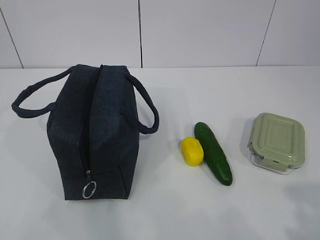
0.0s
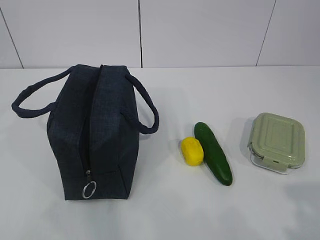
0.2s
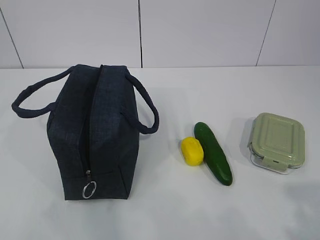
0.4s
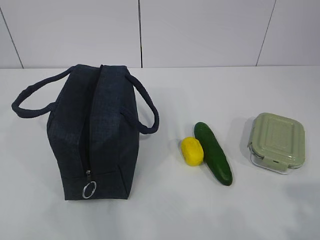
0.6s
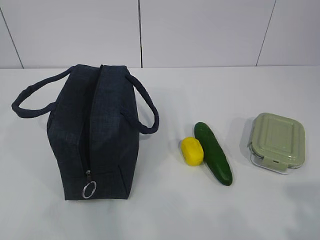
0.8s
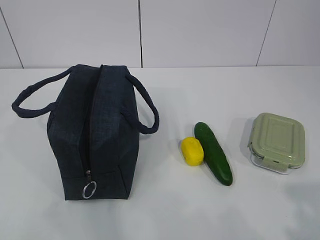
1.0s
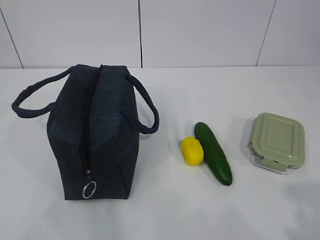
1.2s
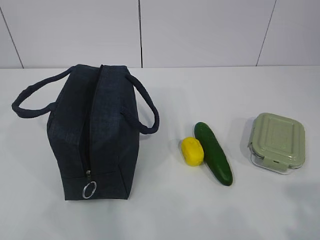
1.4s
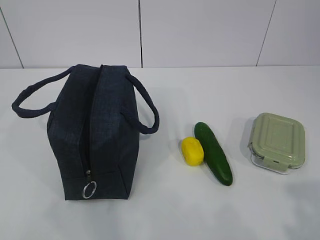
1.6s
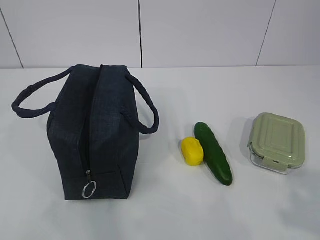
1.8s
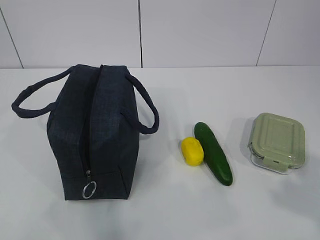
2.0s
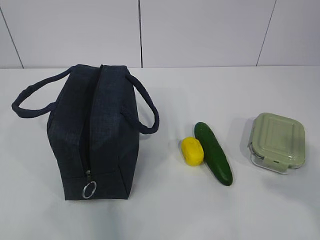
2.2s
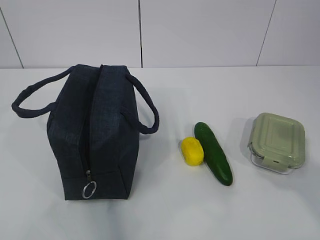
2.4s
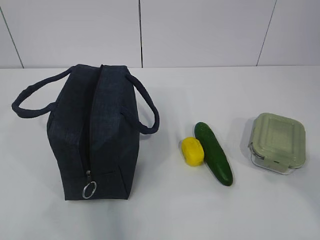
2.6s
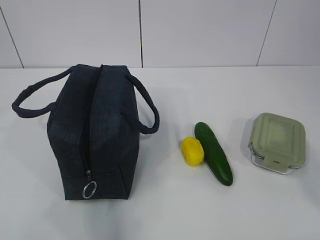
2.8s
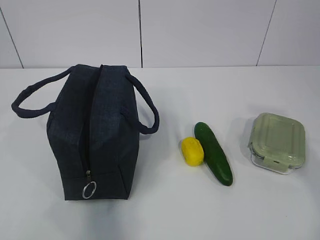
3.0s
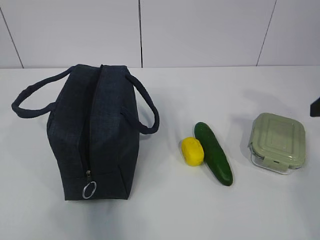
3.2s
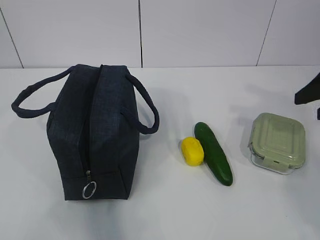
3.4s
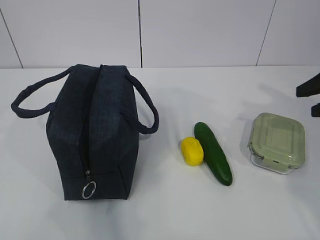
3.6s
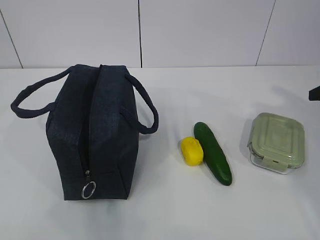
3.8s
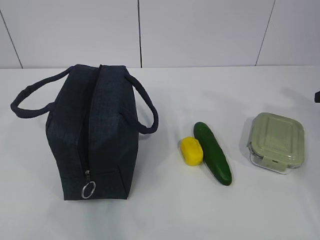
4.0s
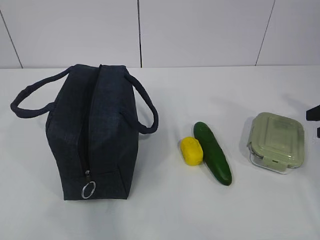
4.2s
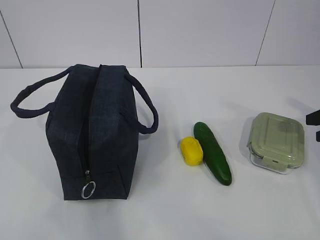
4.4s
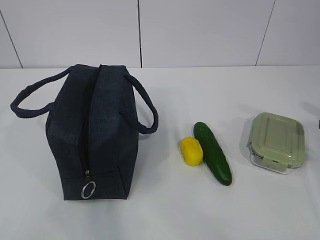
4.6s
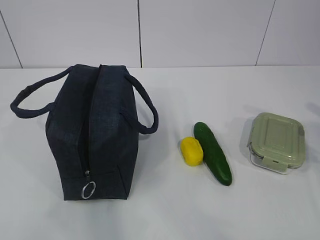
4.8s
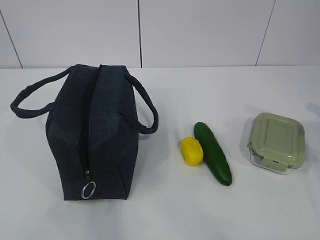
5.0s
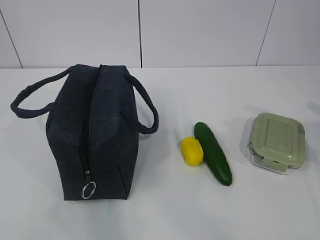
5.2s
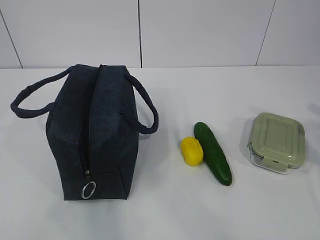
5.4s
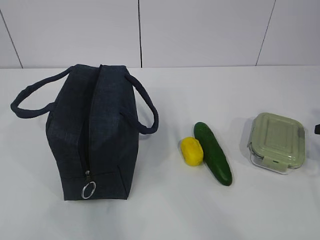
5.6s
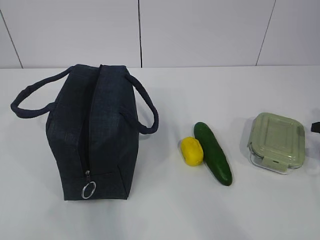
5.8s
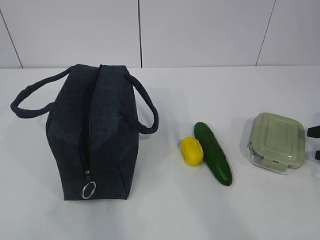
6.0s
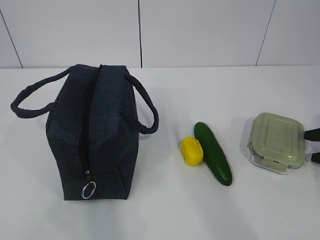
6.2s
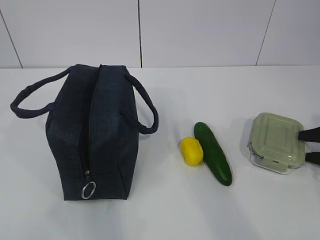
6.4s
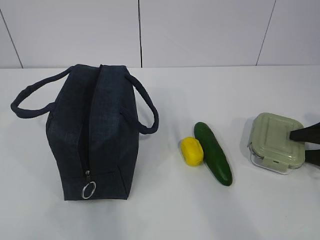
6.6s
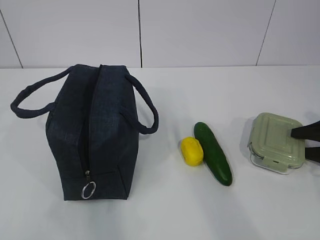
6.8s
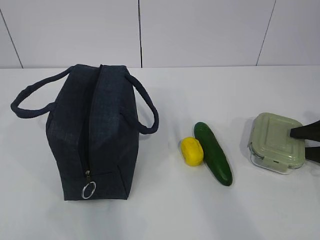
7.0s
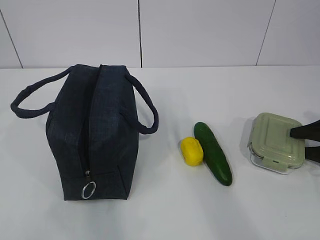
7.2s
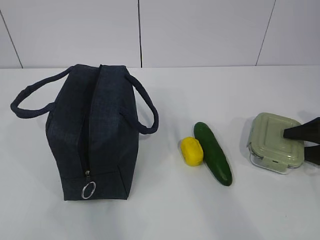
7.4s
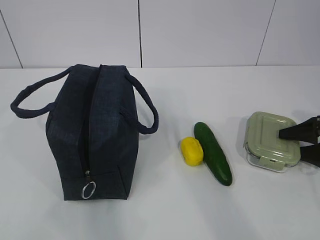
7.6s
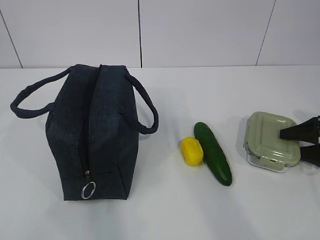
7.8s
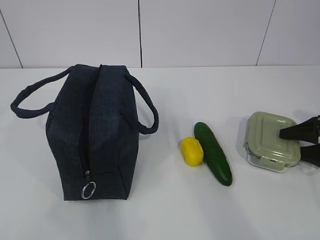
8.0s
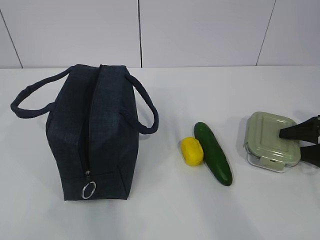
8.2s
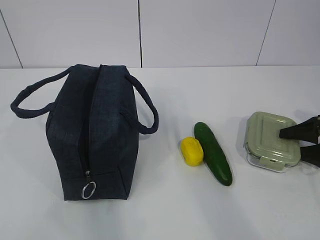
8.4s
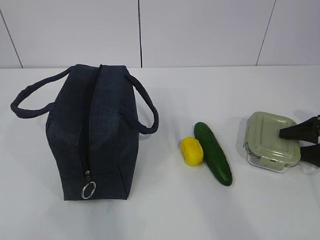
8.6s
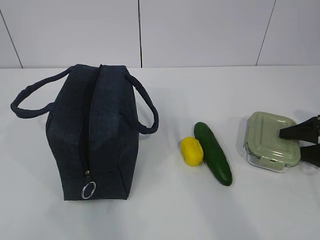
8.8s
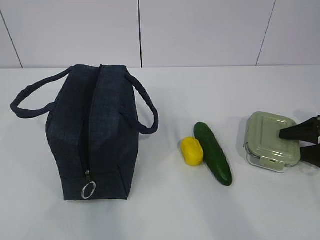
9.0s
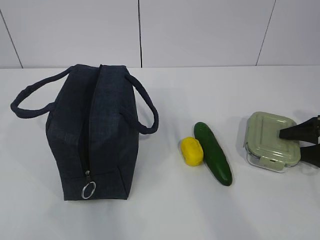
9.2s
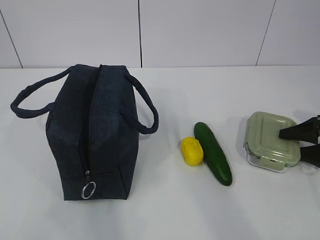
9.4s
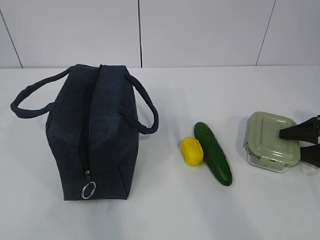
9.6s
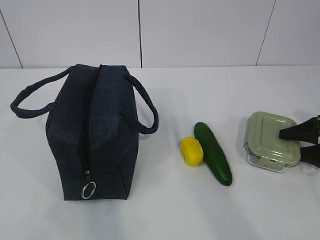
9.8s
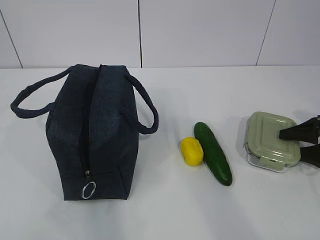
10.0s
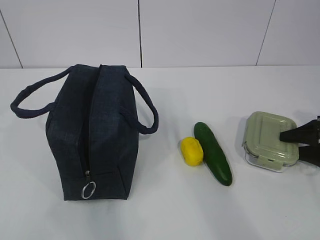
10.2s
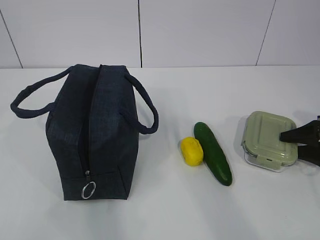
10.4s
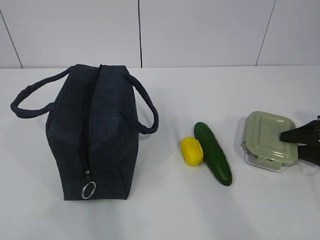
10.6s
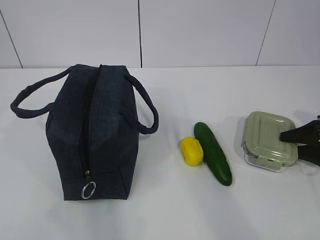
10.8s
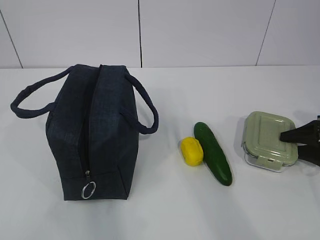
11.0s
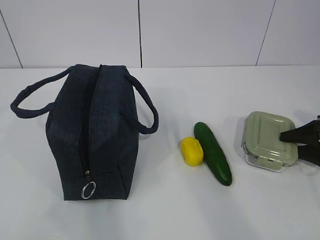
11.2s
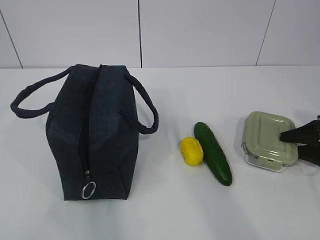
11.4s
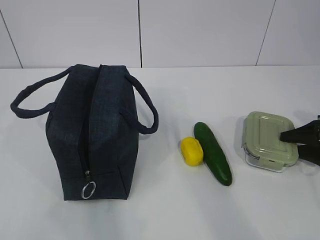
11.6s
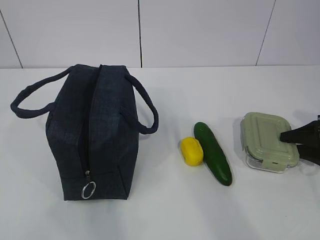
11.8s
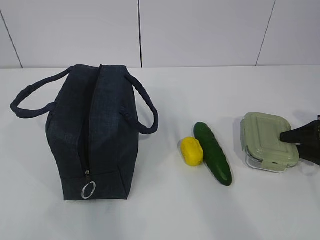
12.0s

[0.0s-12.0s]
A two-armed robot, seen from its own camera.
1.6s to 3.0s: The right gripper heads forward, covering about 20 cm.
3.0s to 4.4s: The right gripper moves forward, to the right and downward, some 20 cm.
4.4s to 6.0s: The right gripper is displaced downward by about 10 cm.
6.0s to 7.6s: The right gripper moves approximately 5 cm.
7.6s to 12.0s: Both grippers stay put.

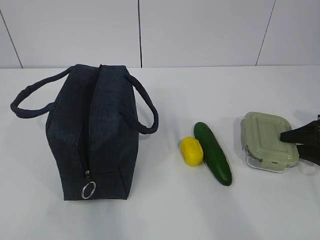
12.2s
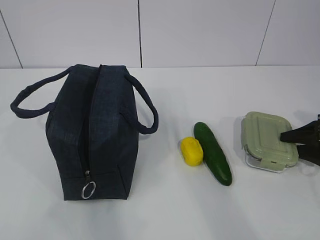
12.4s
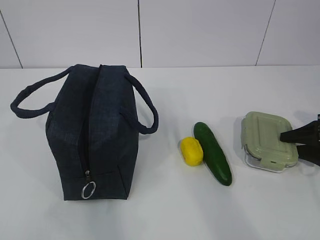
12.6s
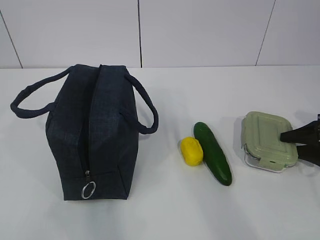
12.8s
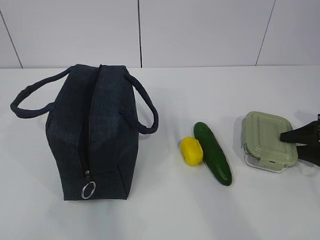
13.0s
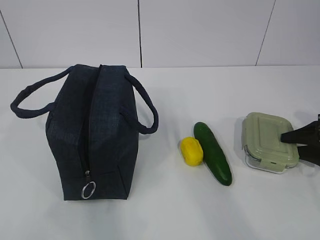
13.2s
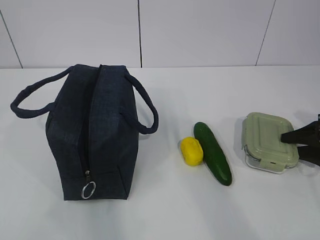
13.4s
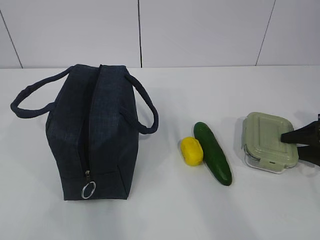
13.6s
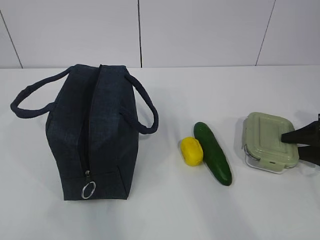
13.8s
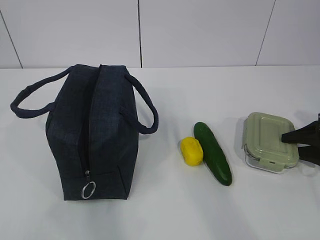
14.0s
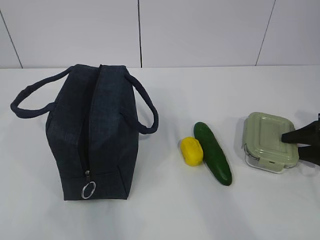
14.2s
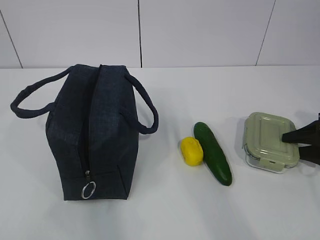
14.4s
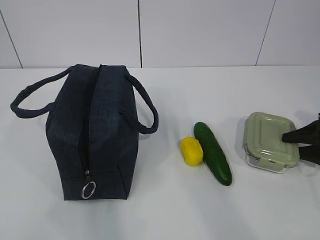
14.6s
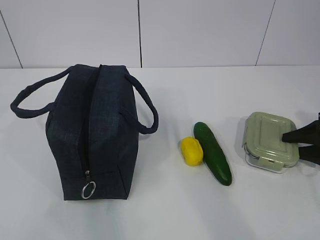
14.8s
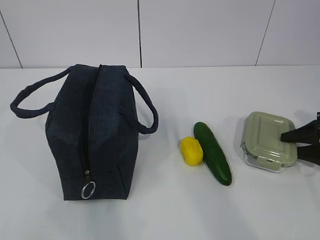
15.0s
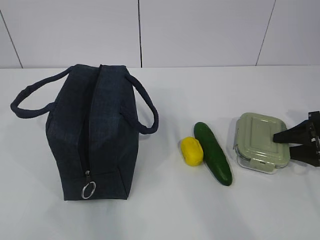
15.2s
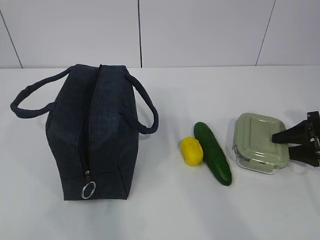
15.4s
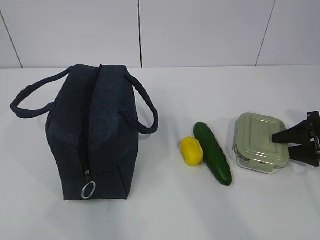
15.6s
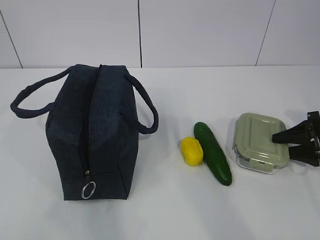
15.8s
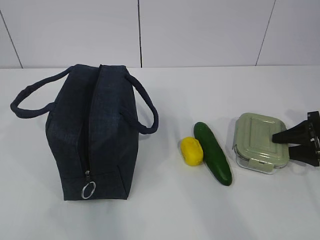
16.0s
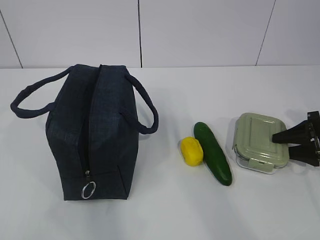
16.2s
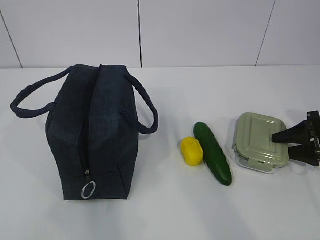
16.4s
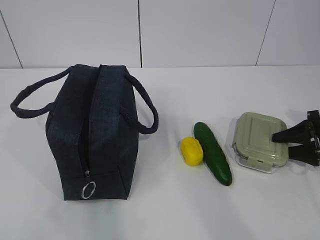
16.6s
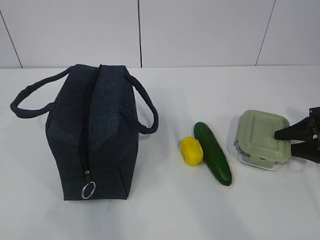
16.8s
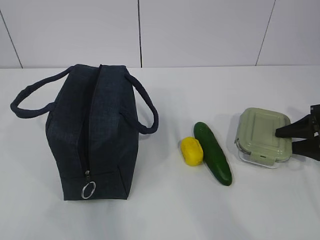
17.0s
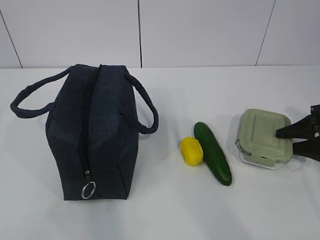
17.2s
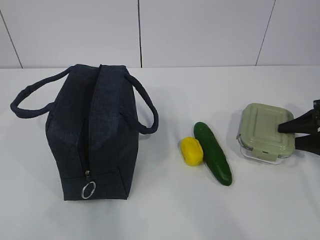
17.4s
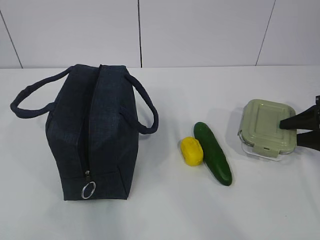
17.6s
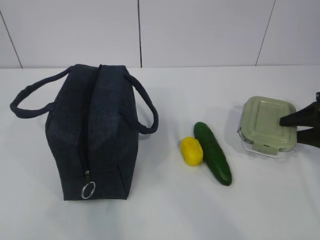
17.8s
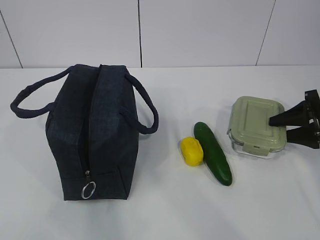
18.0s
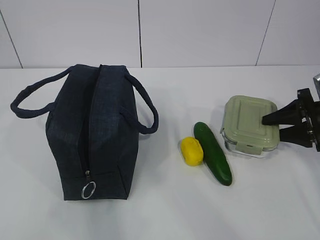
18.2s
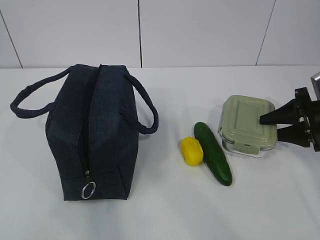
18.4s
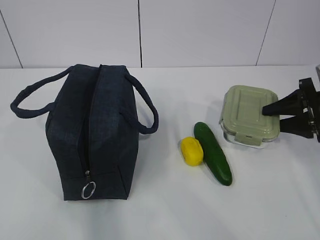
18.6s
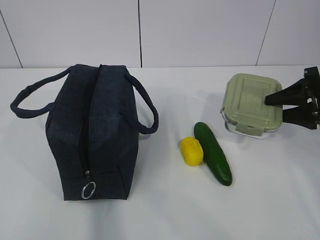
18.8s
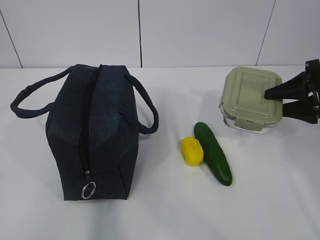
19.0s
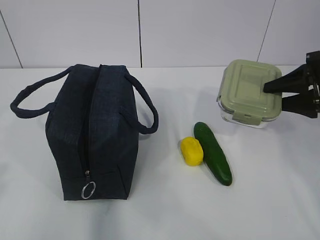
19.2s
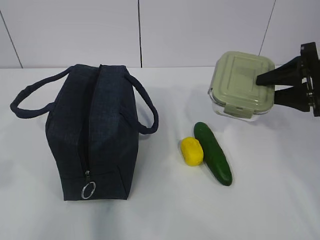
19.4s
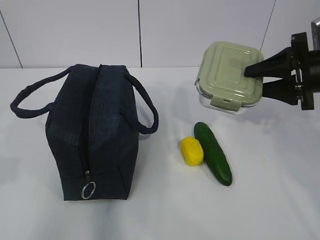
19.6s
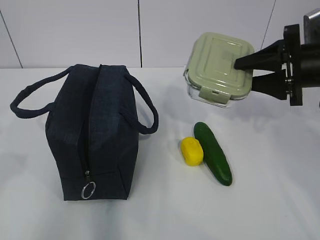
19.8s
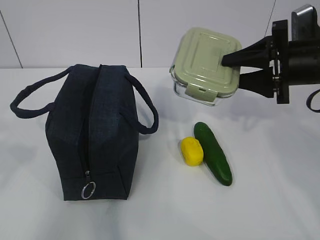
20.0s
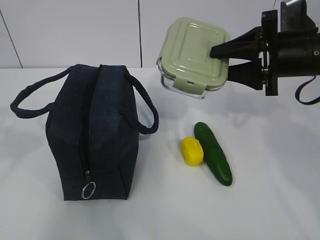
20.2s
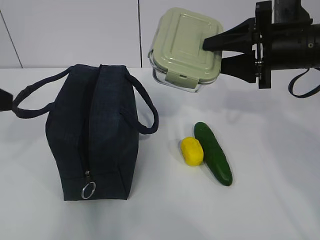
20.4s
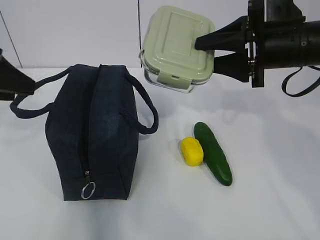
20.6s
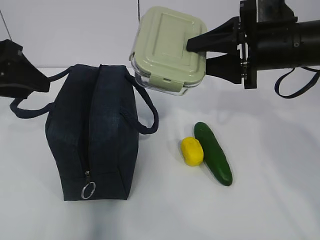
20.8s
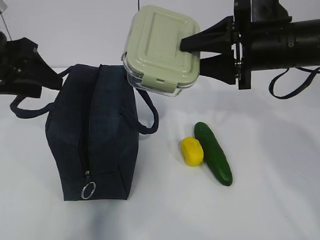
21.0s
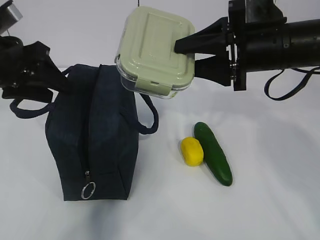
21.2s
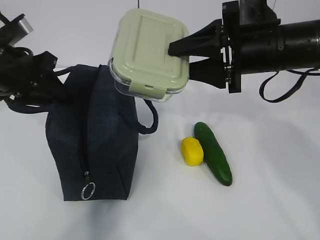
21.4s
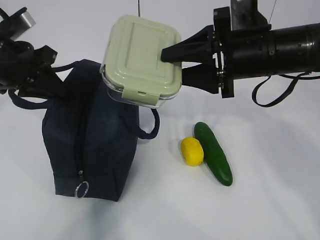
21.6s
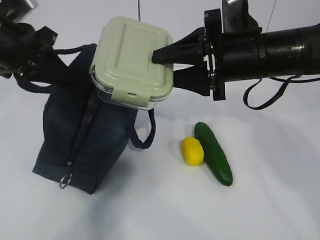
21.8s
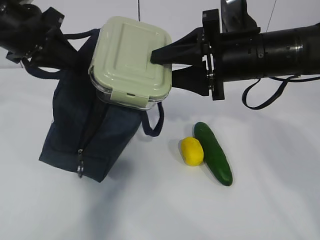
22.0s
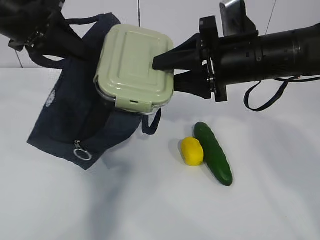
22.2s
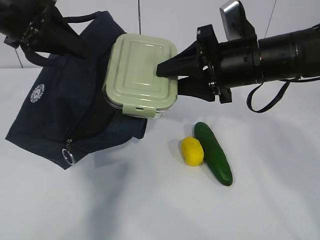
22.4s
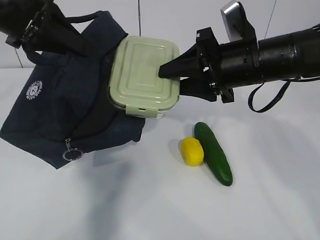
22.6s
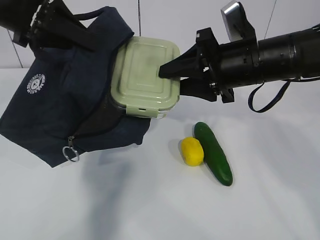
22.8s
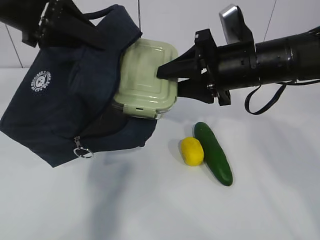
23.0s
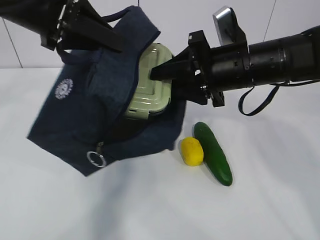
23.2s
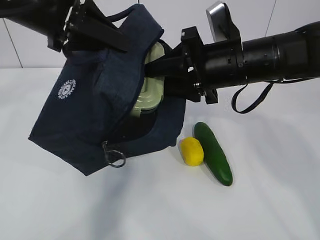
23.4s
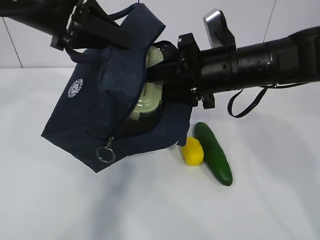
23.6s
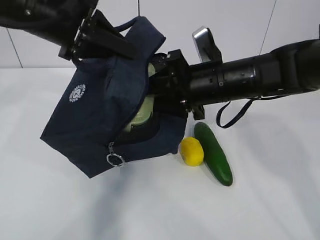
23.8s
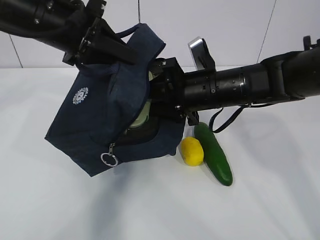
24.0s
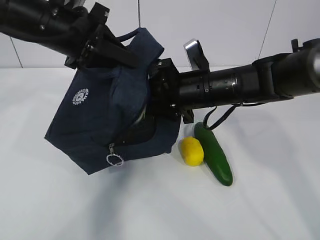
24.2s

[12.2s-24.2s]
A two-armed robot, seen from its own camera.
Step, 18.4s to 22.4s: Place it into the bag with your right hand.
12.2s to 13.8s: Both grippers stay put.
13.8s to 15.2s: The grippers make only small movements.
15.2s to 16.6s: Both grippers stay about where they are.
16.6s to 18.2s: The right gripper goes about 5 cm upward.
18.2s to 19.8s: The left gripper moves forward, approximately 10 cm. Meanwhile the right gripper heads upward and to the left, covering approximately 15 cm.
19.8s to 21.2s: The left gripper is displaced forward by approximately 20 cm, and opens. The right gripper shifts roughly 10 cm to the left.
21.2s to 22.6s: The left gripper shifts roughly 5 cm upward, and closes up.
22.6s to 24.2s: The left gripper shifts by approximately 5 cm. Meanwhile the right gripper shifts about 5 cm downward.
